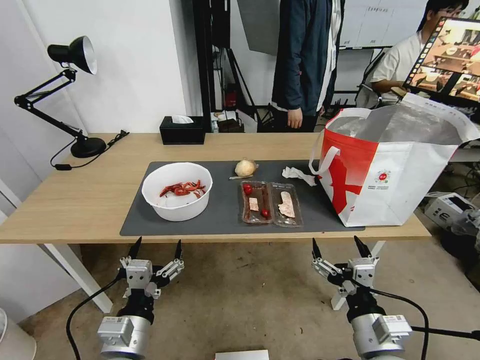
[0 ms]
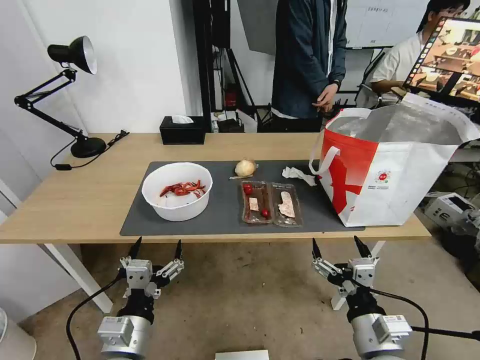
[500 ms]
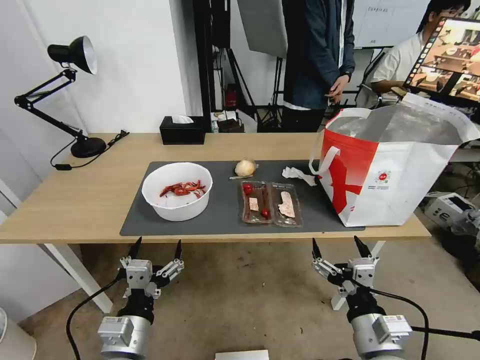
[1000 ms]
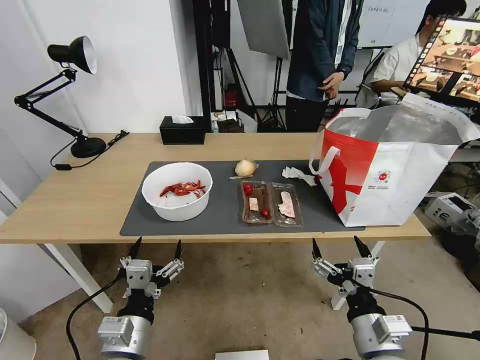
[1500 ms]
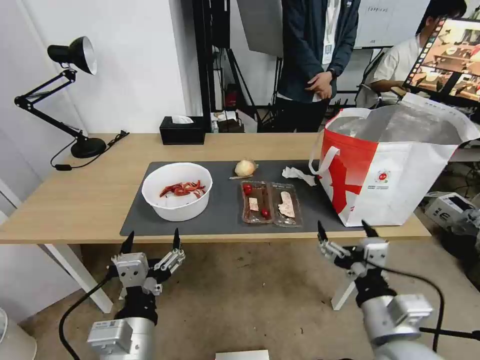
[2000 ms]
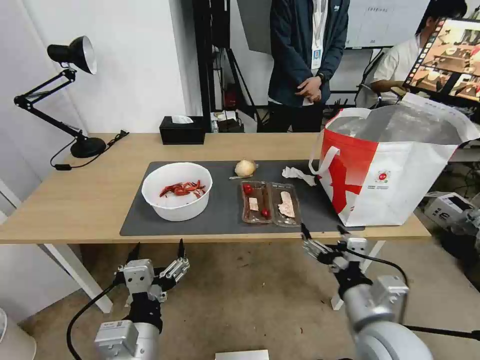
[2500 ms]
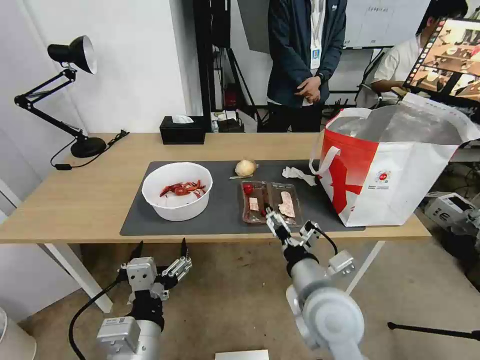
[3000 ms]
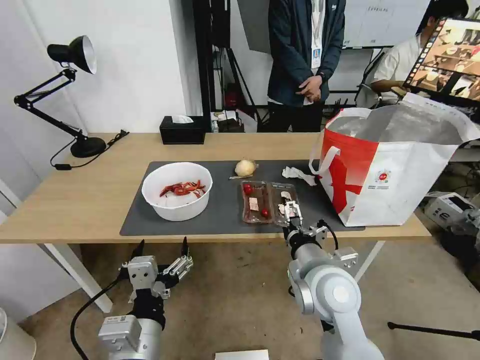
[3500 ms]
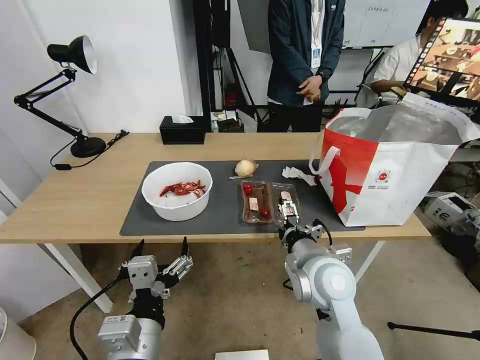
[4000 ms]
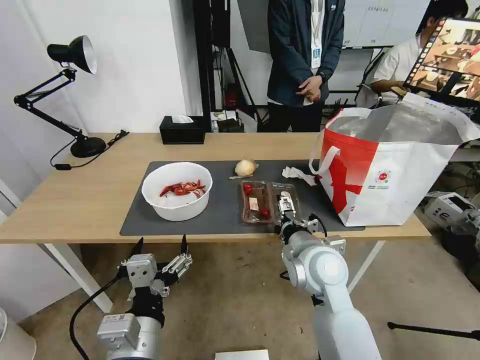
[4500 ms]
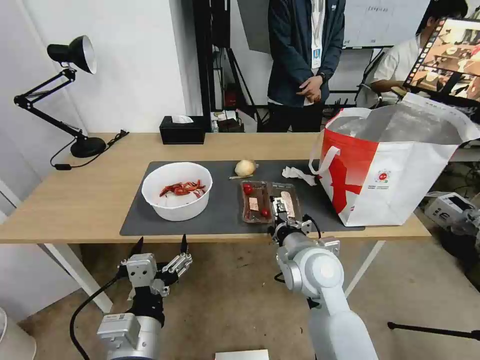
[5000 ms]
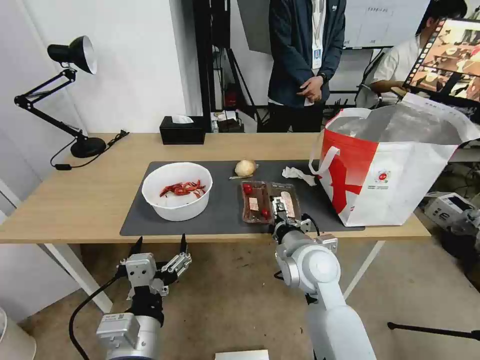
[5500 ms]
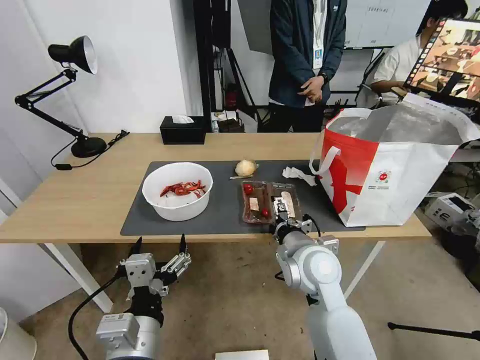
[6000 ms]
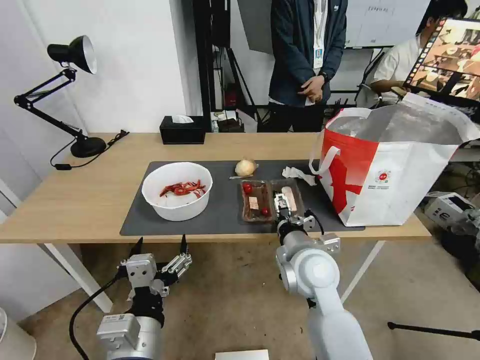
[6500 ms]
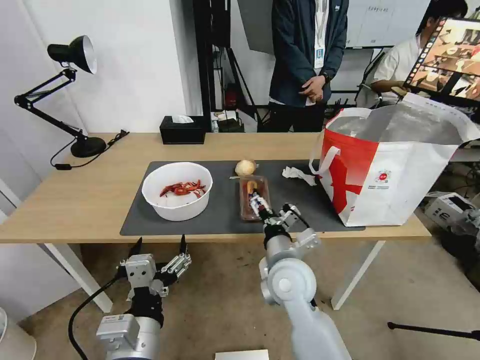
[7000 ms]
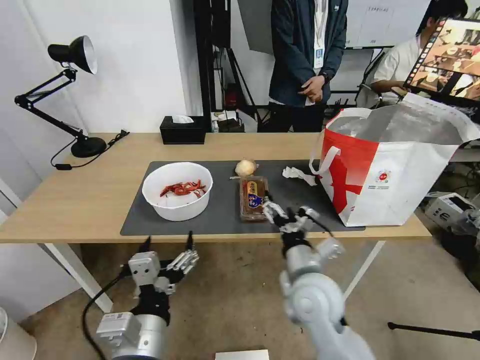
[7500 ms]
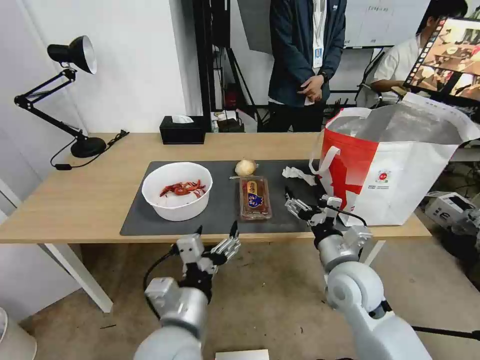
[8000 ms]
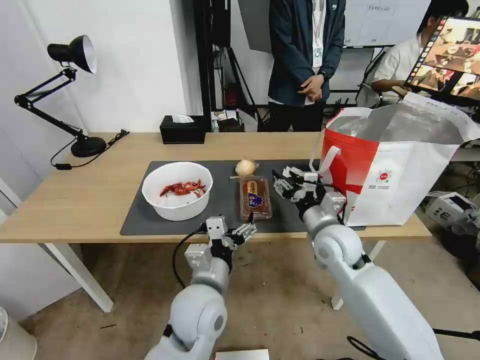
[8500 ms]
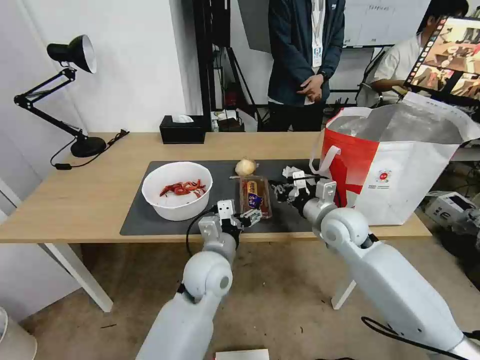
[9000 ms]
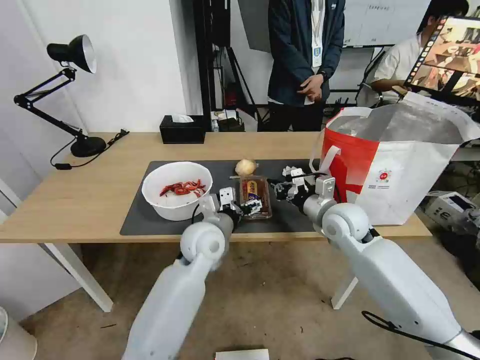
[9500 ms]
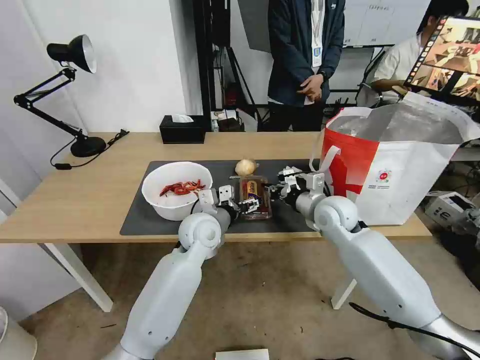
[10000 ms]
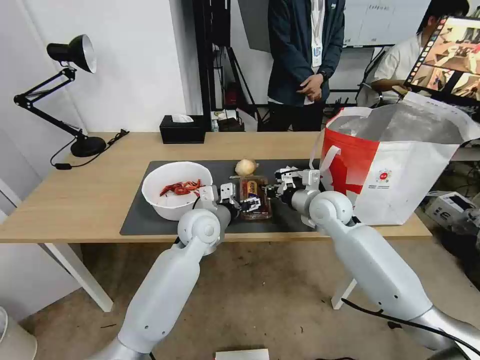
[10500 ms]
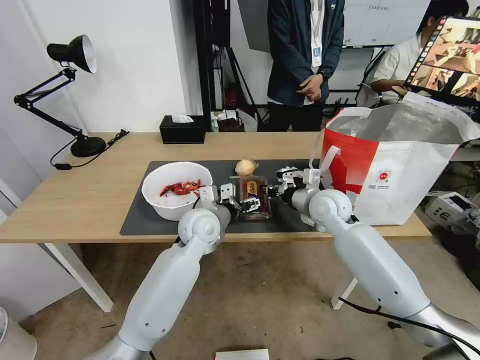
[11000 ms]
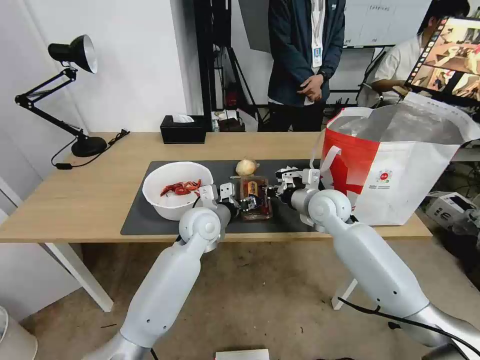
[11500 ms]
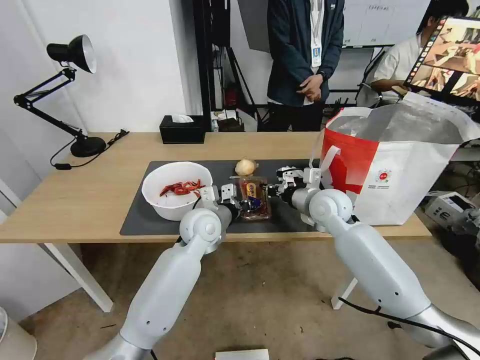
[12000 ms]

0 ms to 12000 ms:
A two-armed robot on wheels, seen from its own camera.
Task of the whole recording: Pick up the trash from the table and place it into the takeout bag.
2000 ms to 4000 ms: The right gripper heads forward and to the left, covering roughly 15 cm.
4000 ms to 6000 ms: There are only small adjustments of the grippers.
6000 ms to 8000 ms: The left gripper ends up roughly 5 cm from where it was. Meanwhile the right gripper shifts some 10 cm to the right.
8000 ms to 10000 ms: The right gripper heads forward, covering some 15 cm, and closes its fingers, while the left gripper goes some 25 cm forward.
10000 ms to 12000 ms: The left gripper closes up.

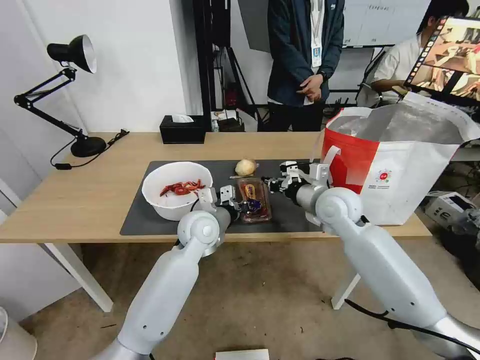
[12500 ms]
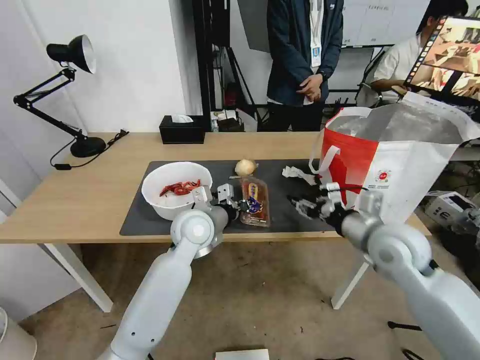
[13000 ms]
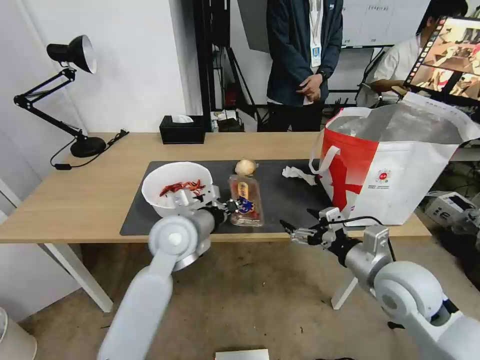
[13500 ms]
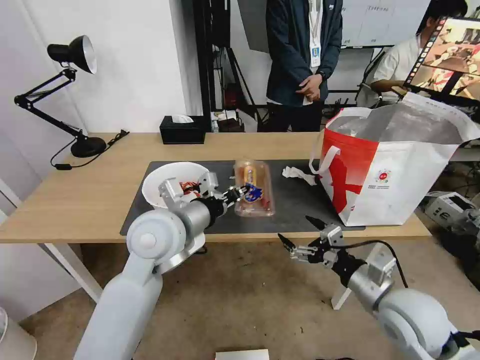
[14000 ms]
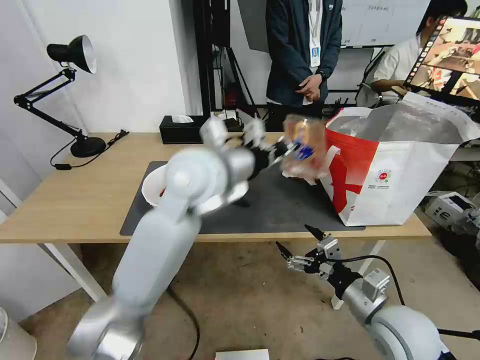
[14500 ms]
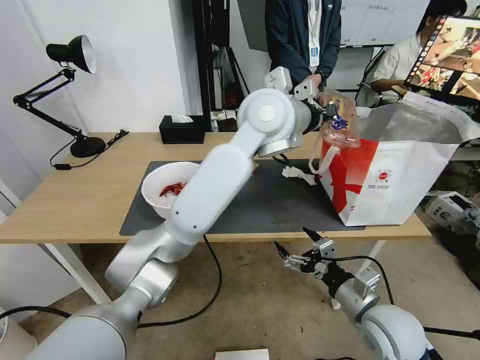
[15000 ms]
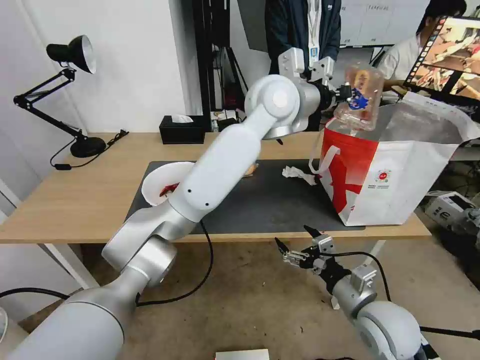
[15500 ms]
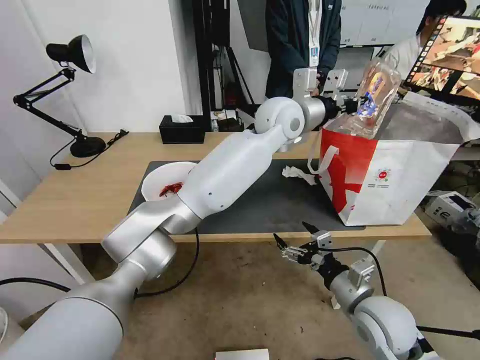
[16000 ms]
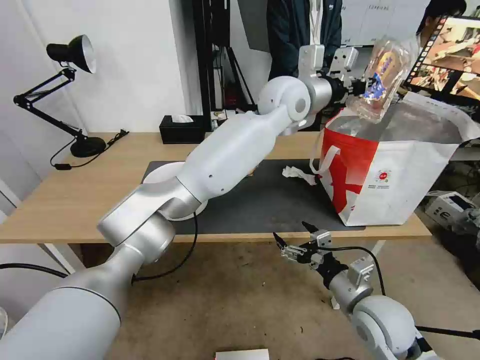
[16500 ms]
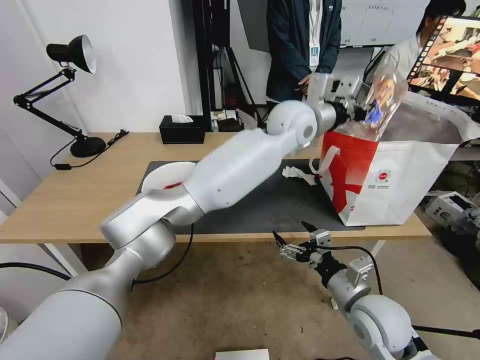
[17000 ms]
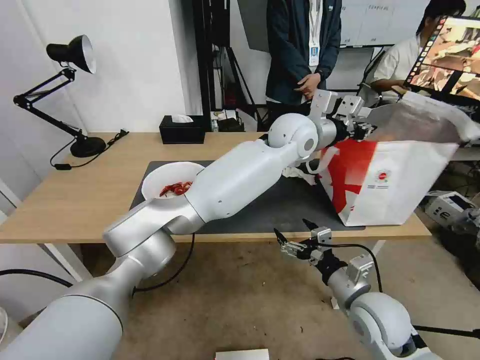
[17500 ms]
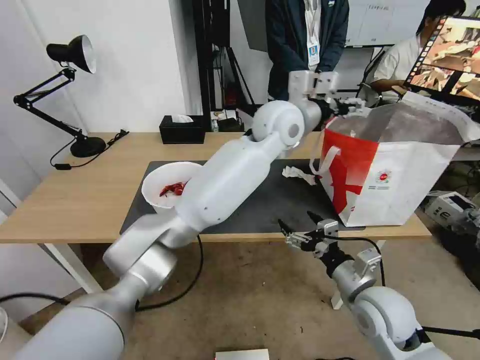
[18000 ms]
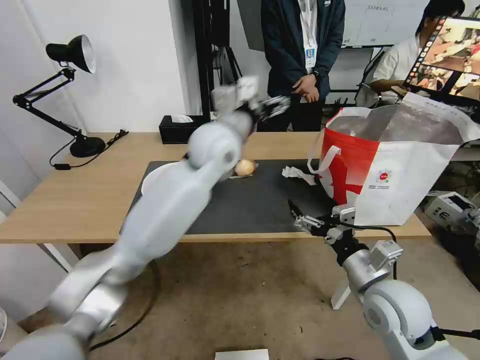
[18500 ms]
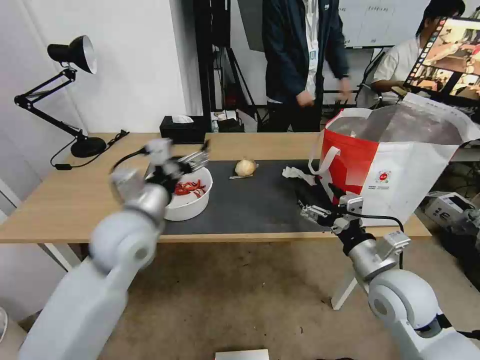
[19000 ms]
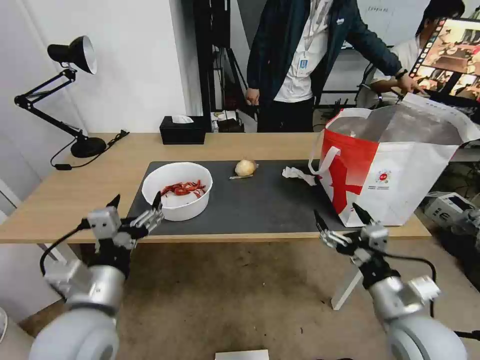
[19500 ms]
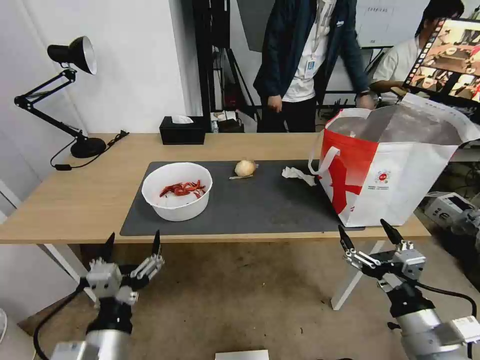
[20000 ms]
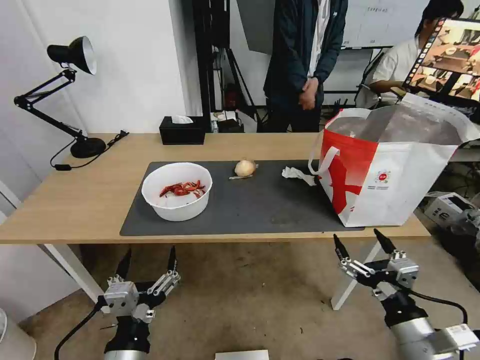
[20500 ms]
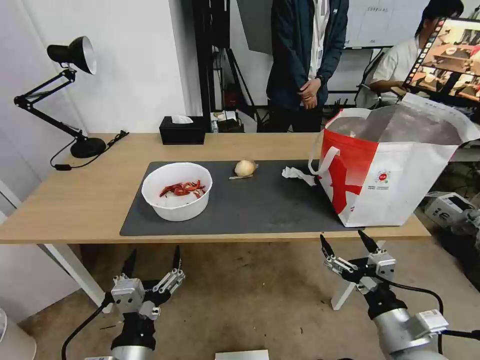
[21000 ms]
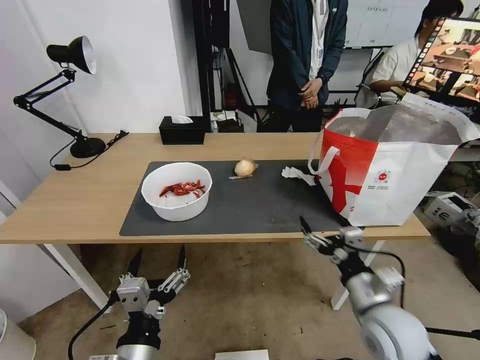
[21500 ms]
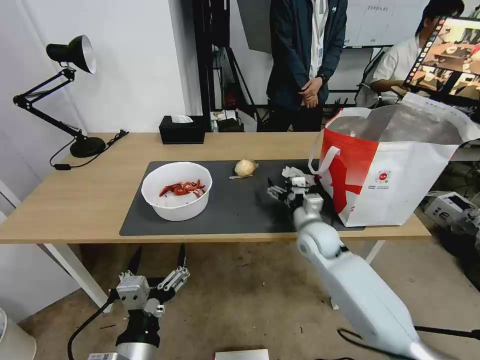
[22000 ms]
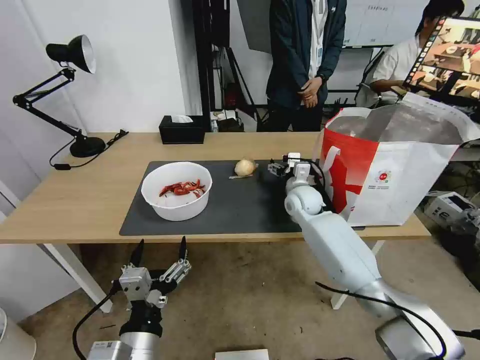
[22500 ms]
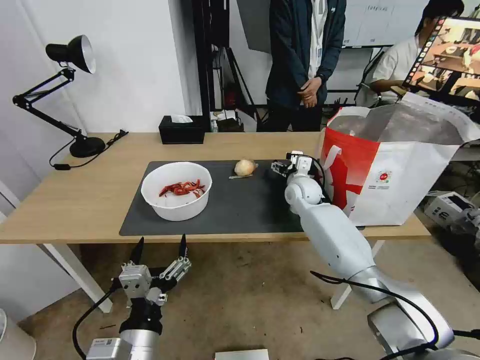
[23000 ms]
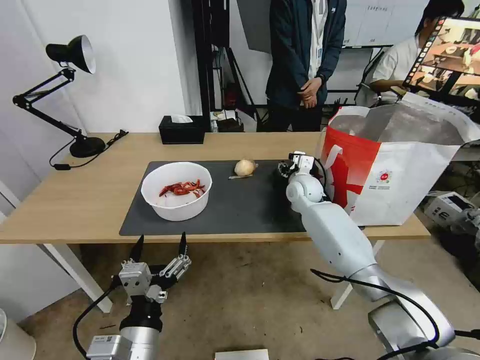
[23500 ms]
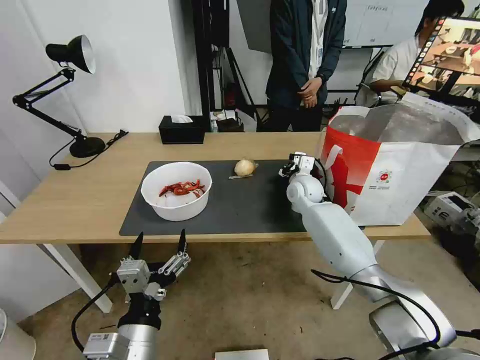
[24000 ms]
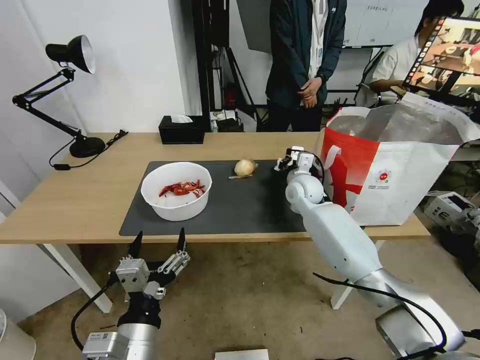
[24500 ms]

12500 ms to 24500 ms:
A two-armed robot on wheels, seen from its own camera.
Task of the whole recording: Pick up the trash from the table and place it into the takeout bag.
12500 ms to 14500 ms: The left gripper goes about 20 cm upward. Meanwhile the right gripper travels backward by approximately 25 cm, and opens.
14500 ms to 16500 ms: The left gripper heads forward and to the right, covering approximately 20 cm.
16500 ms to 18500 ms: The left gripper shifts some 20 cm to the left, backward and downward, and opens its fingers.
18500 ms to 20500 ms: The left gripper heads backward and downward, covering approximately 40 cm. The right gripper shifts approximately 10 cm backward.
20500 ms to 22500 ms: The right gripper is displaced forward by approximately 40 cm.
22500 ms to 24500 ms: The right gripper closes up.

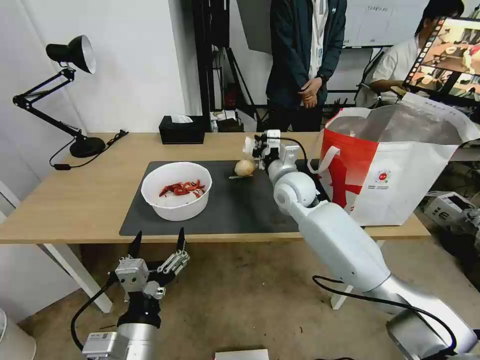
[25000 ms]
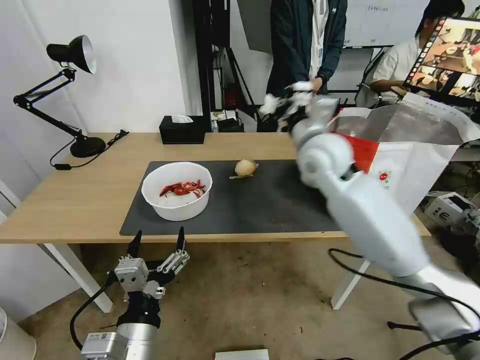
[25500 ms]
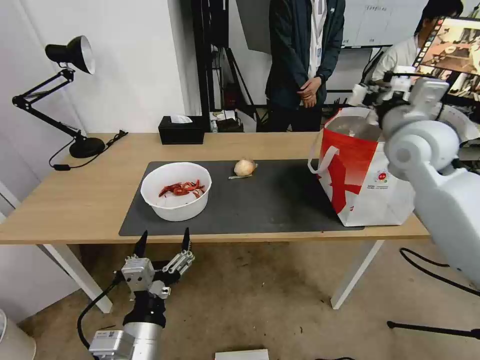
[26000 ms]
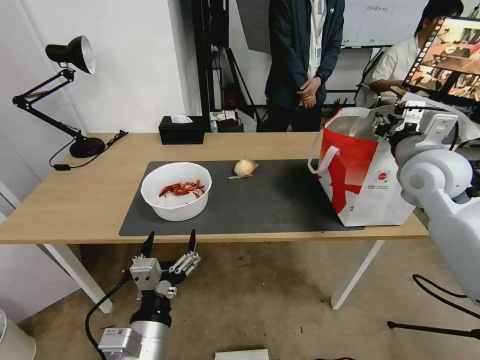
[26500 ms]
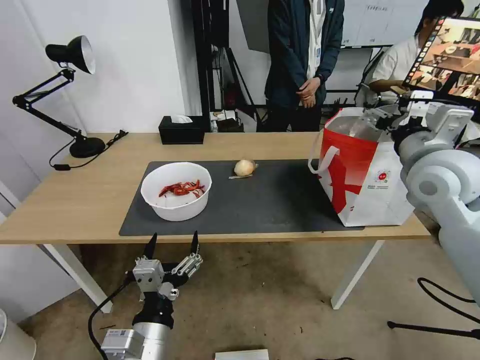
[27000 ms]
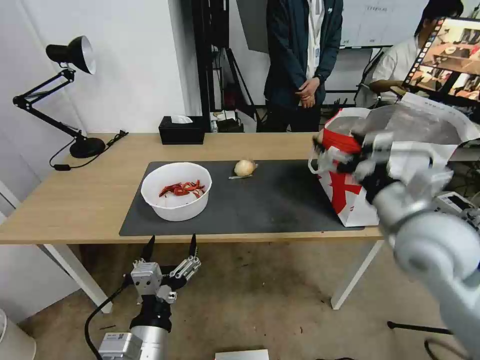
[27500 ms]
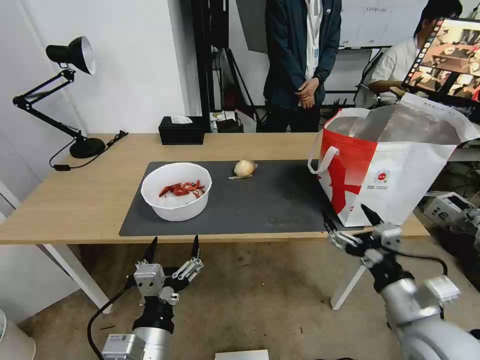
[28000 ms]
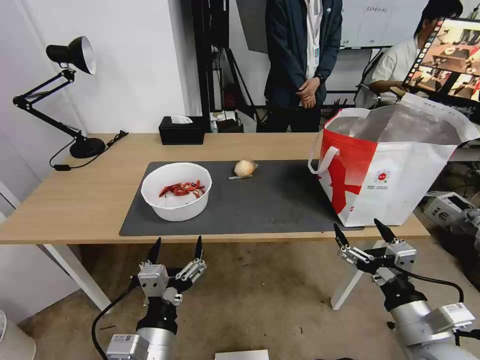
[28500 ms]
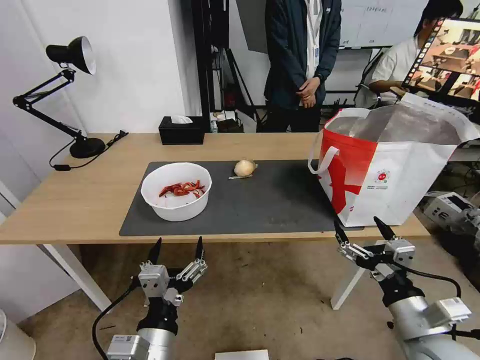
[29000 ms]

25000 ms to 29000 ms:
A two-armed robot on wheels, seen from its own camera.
Task of the whole recording: Pick up the trash from the table and place it into the takeout bag.
25000 ms to 27000 ms: The right gripper moves to the right, upward and backward, approximately 25 cm, and opens up.
27000 ms to 29000 ms: The right gripper heads backward and downward, covering about 30 cm.
